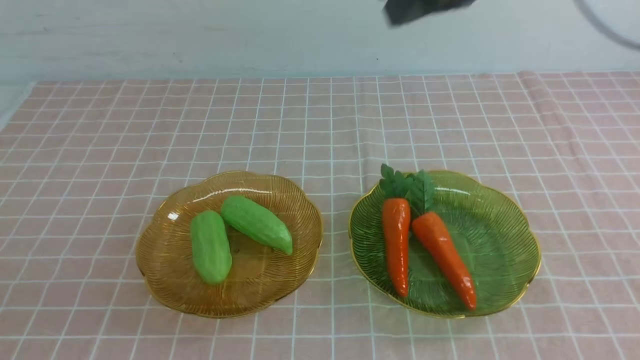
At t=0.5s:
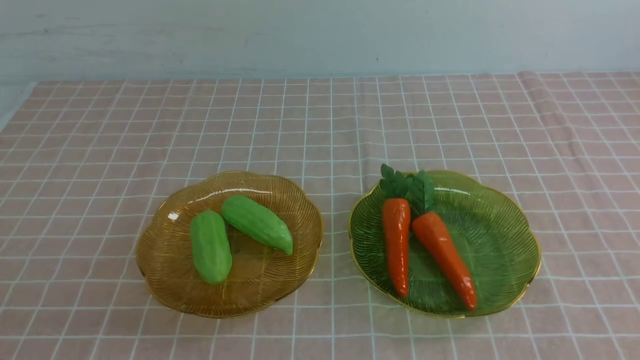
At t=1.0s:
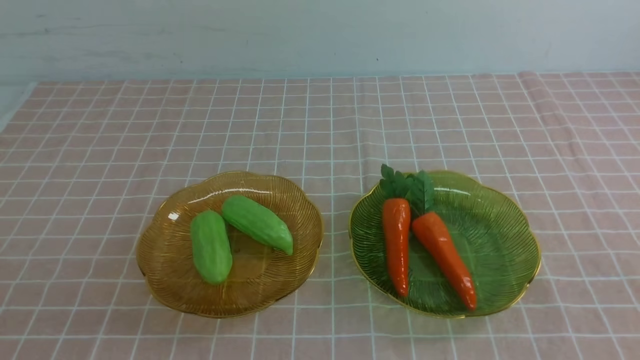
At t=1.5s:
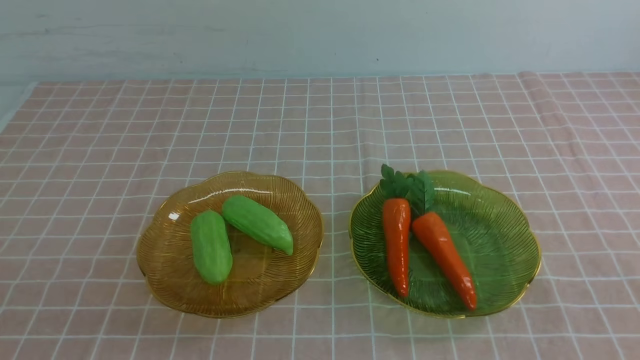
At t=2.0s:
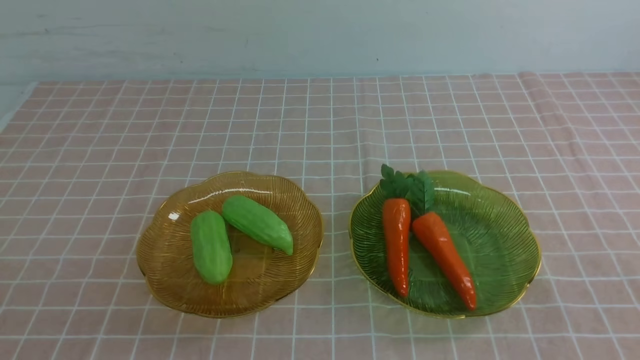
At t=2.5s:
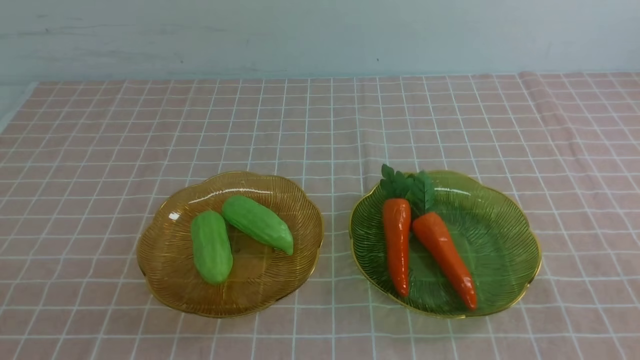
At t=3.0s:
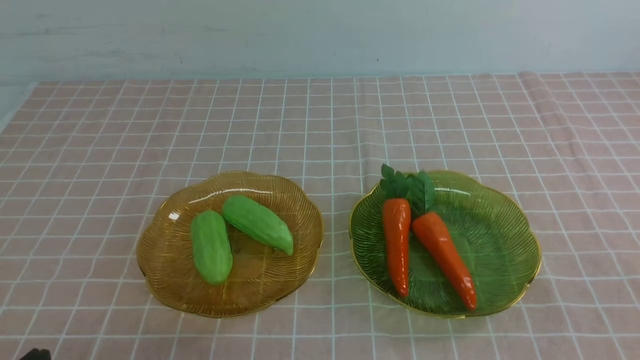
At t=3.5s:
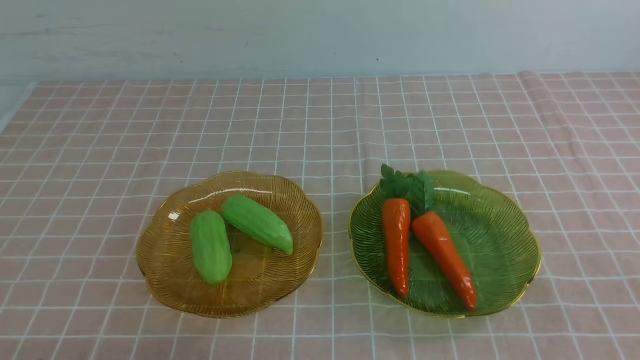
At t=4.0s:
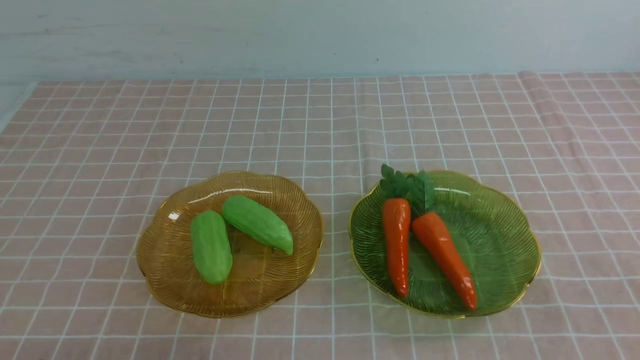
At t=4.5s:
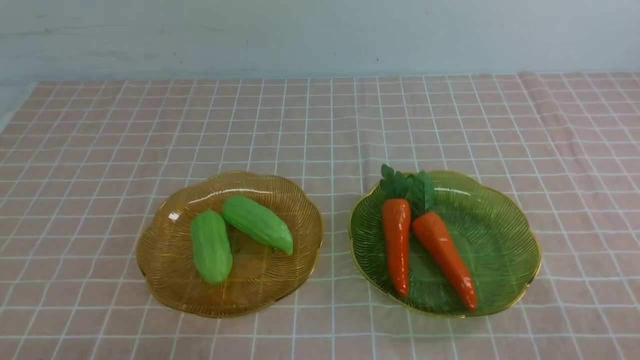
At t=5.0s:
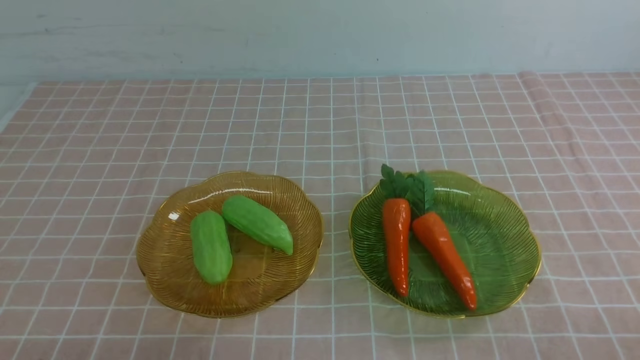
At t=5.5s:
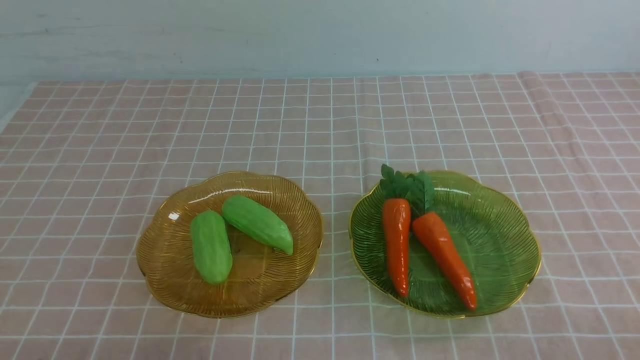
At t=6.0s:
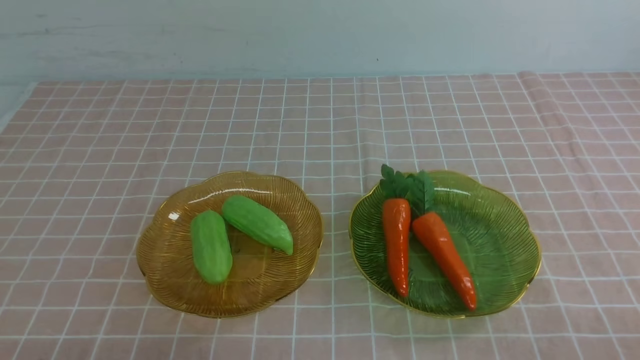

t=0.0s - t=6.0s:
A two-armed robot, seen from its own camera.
t=0.0s - t=2.0s: The right gripper is displaced backward and to the right by roughly 35 cm, while the left gripper ends up about 5 cm from where it was.
